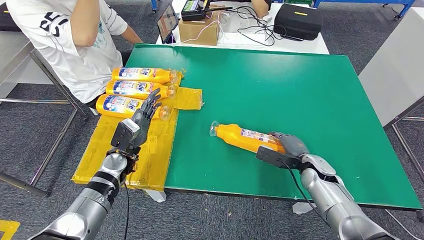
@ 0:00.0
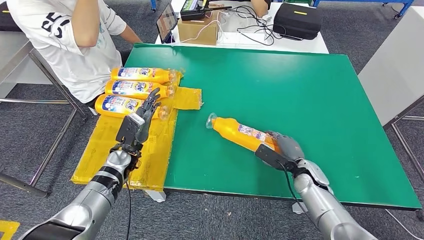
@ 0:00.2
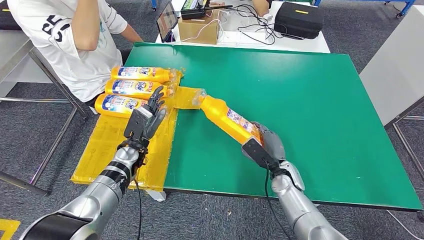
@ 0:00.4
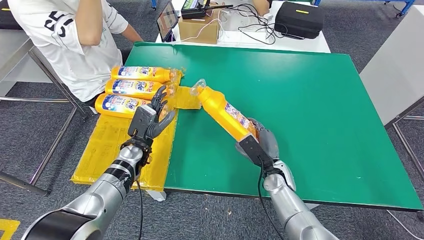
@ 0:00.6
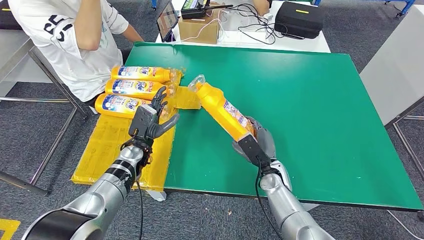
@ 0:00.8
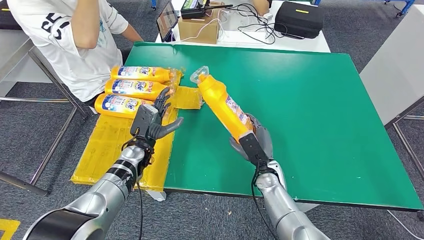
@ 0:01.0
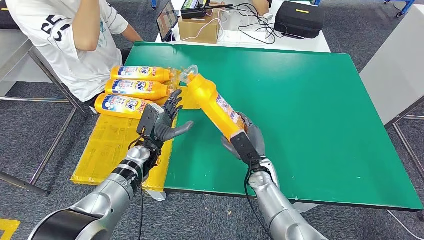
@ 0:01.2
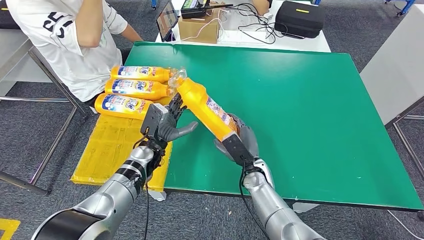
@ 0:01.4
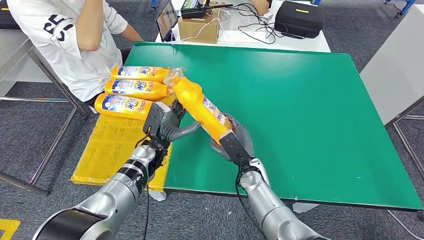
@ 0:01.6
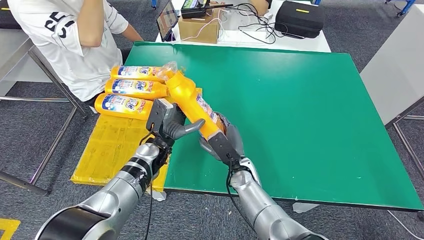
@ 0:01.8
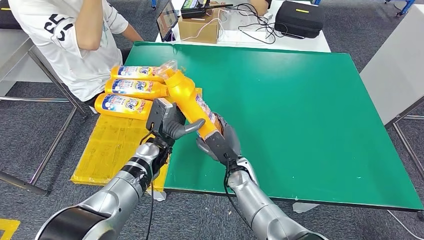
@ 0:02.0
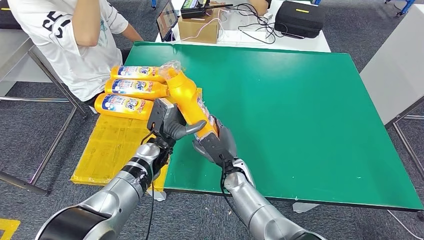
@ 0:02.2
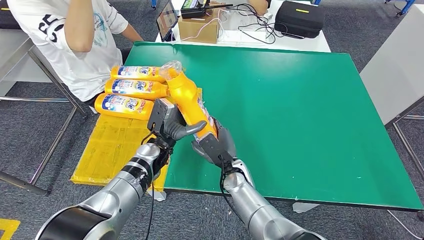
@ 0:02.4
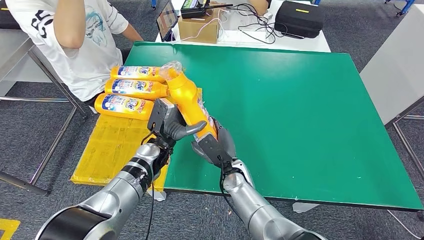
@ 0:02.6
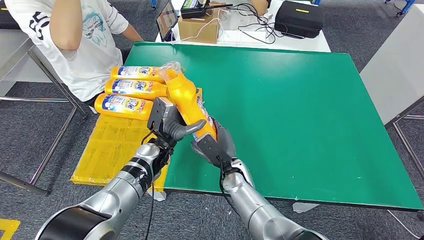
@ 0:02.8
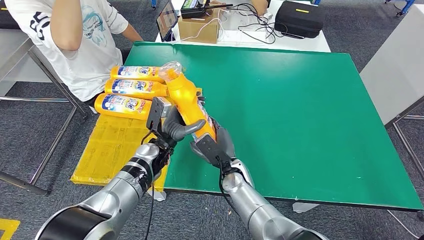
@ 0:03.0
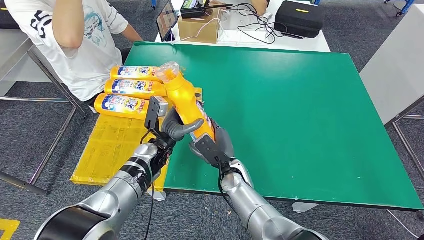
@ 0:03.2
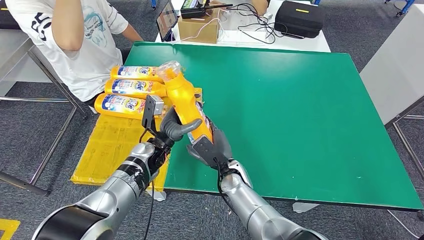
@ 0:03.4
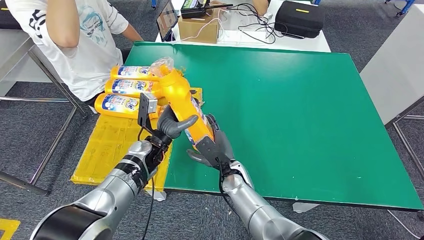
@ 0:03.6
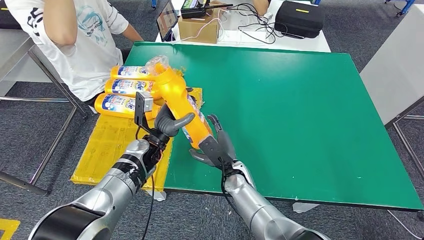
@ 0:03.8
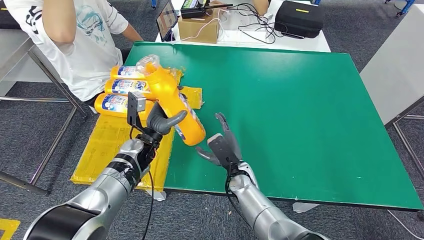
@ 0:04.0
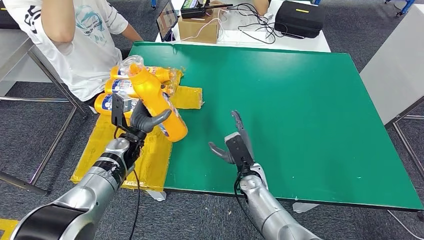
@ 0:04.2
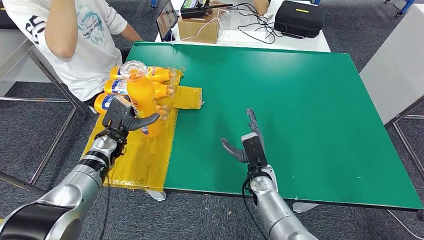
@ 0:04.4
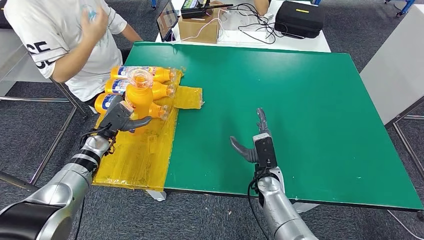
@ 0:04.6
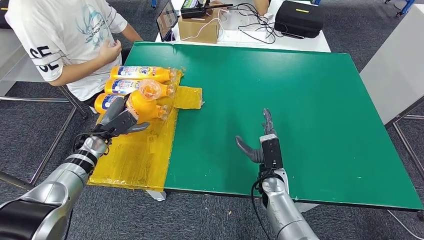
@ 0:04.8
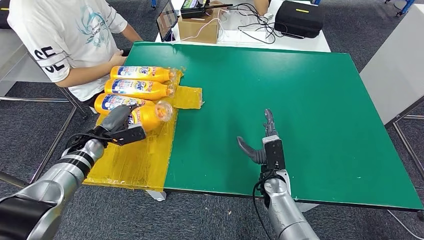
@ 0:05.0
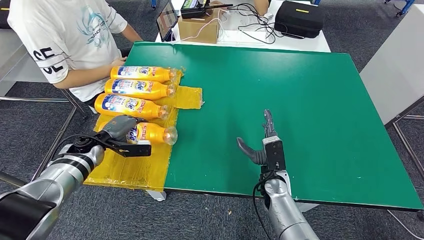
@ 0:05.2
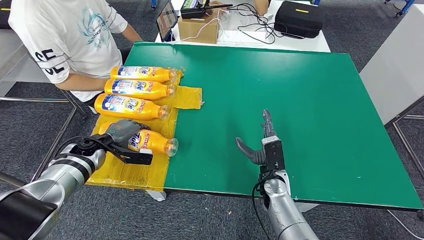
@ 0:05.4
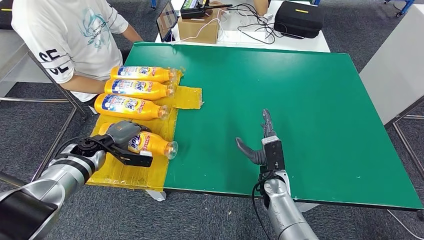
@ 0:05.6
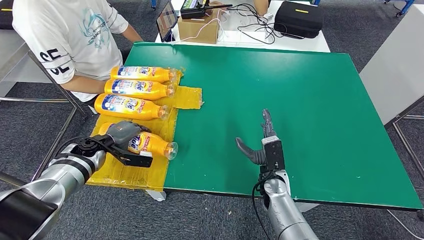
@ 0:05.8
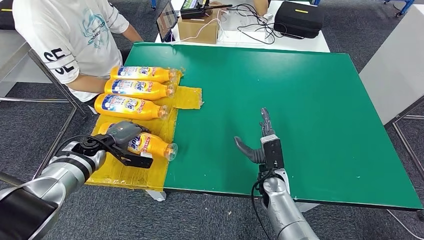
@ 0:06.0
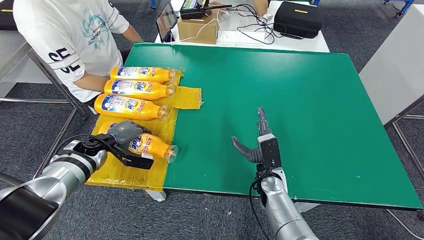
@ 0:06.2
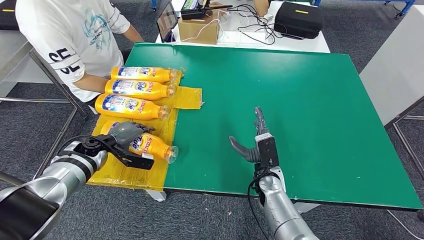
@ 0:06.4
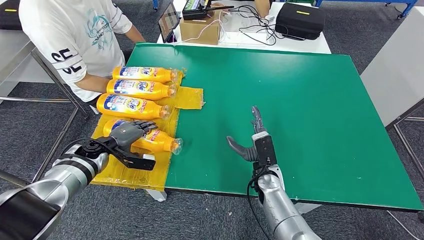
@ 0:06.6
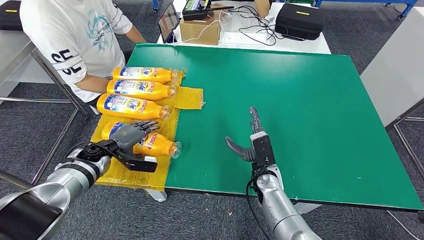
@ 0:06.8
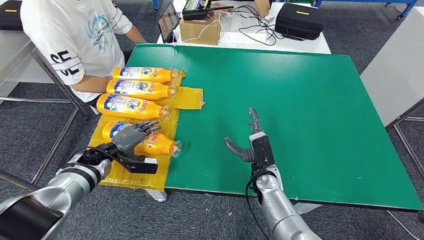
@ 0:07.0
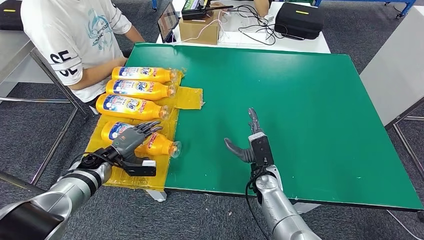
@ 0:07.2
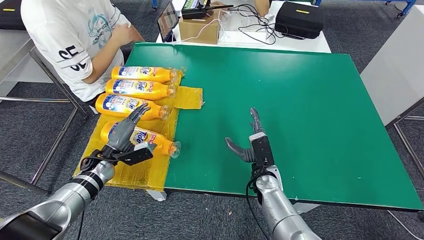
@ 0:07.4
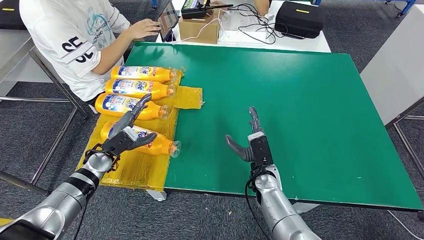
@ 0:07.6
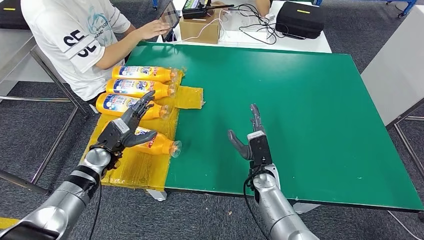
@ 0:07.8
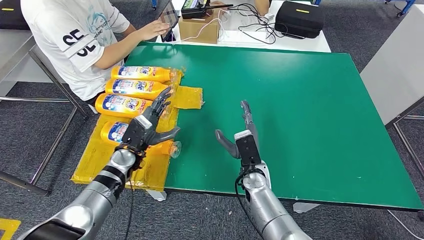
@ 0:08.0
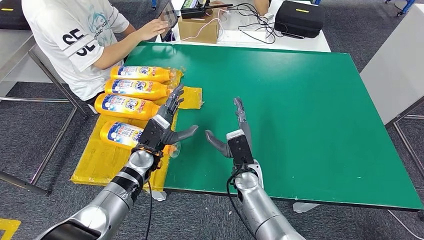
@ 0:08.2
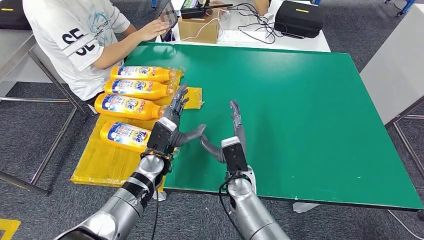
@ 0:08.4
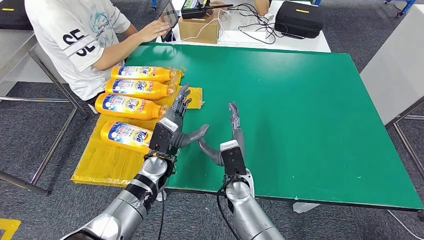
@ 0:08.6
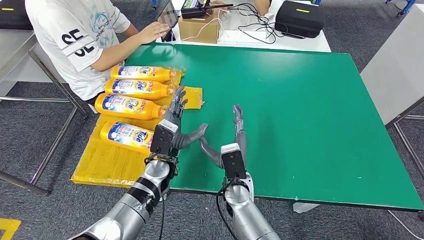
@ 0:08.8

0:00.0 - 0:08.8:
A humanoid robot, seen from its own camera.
Step, 0:01.6 - 0:08.8: Flip the fast-moving consumer goods bottle to the front side.
0:01.4 - 0:03.0: The right hand travels to the left by about 5 cm.
0:04.4 - 0:05.8: The left hand shifts roughly 5 cm to the left.
0:05.8 - 0:07.4: The left hand changes place by roughly 5 cm.
